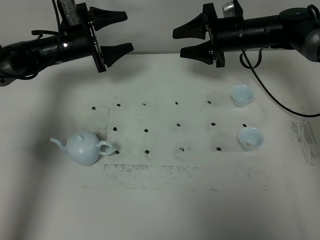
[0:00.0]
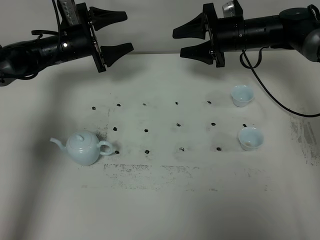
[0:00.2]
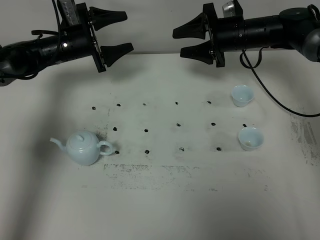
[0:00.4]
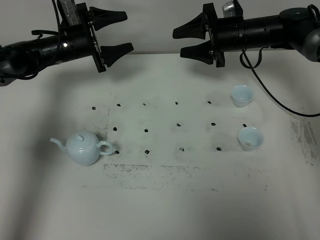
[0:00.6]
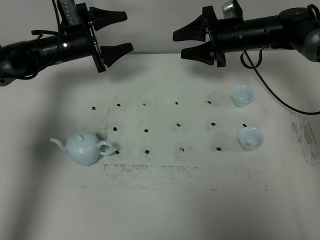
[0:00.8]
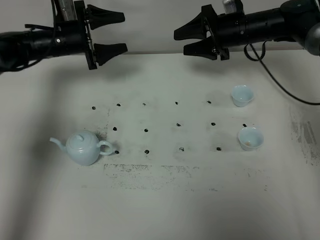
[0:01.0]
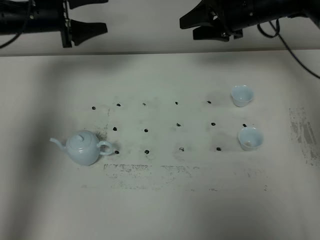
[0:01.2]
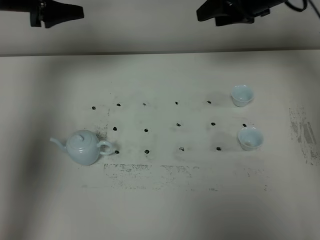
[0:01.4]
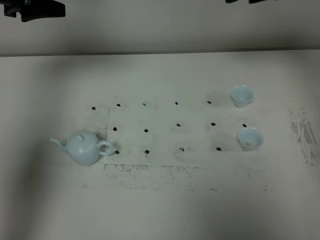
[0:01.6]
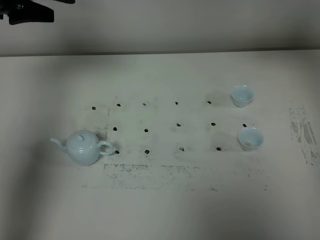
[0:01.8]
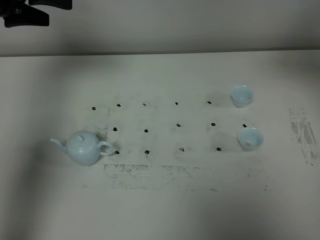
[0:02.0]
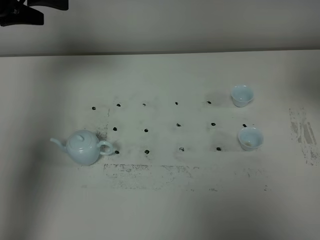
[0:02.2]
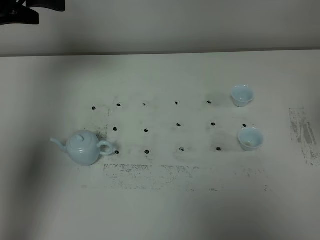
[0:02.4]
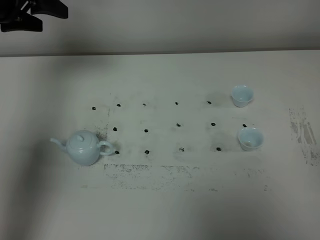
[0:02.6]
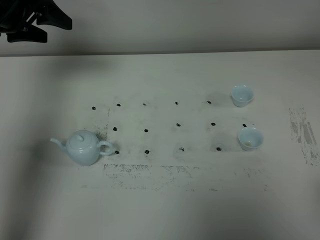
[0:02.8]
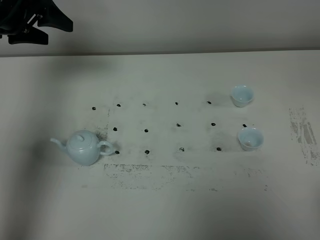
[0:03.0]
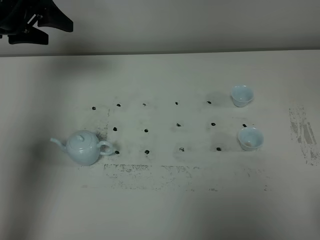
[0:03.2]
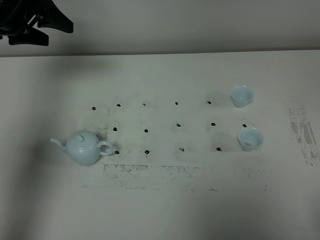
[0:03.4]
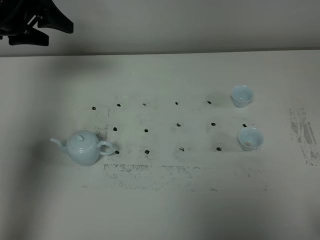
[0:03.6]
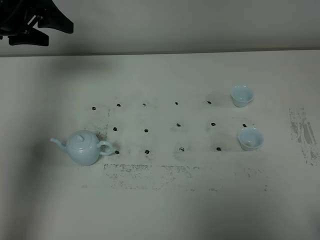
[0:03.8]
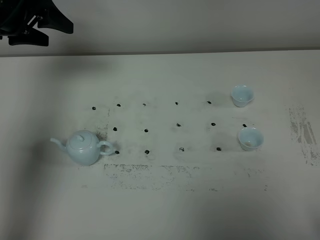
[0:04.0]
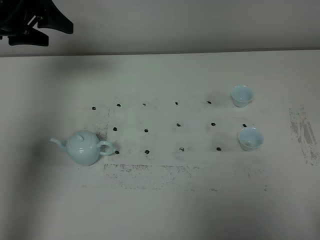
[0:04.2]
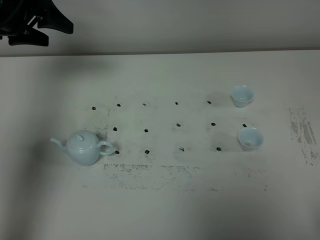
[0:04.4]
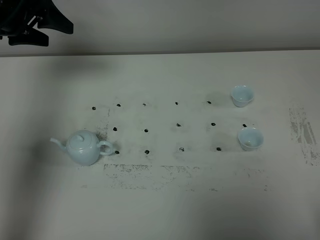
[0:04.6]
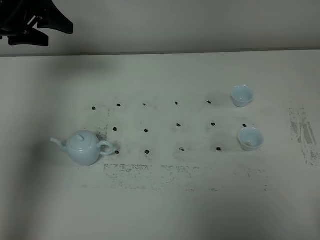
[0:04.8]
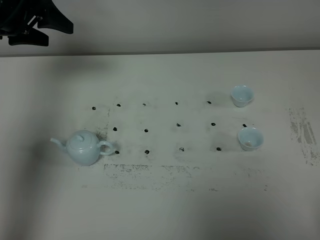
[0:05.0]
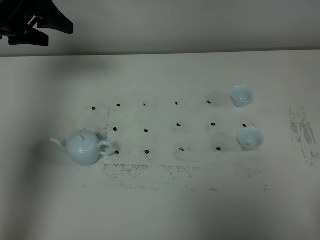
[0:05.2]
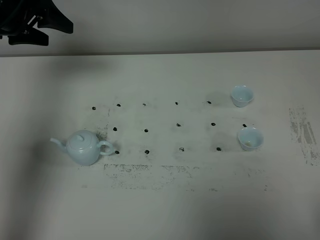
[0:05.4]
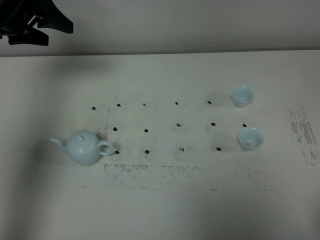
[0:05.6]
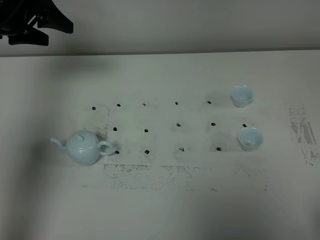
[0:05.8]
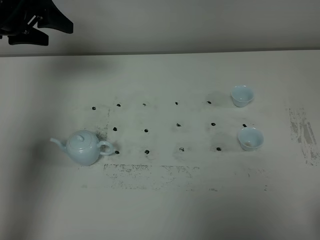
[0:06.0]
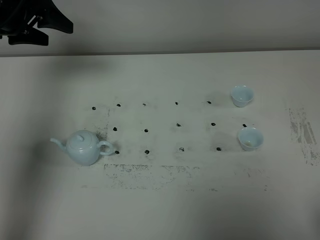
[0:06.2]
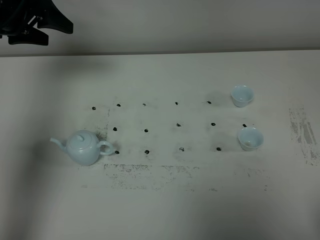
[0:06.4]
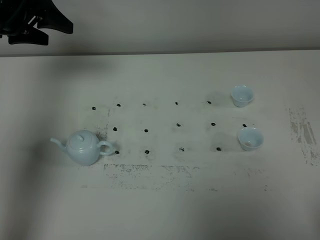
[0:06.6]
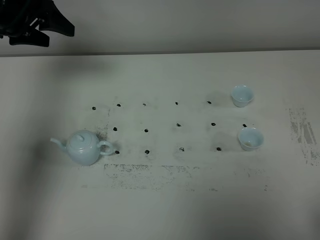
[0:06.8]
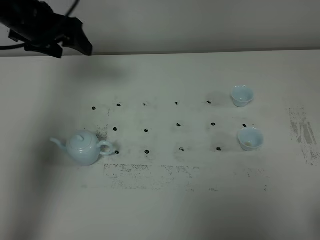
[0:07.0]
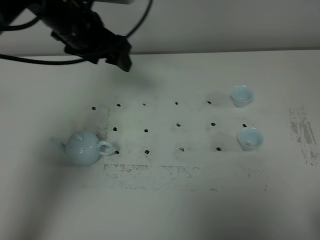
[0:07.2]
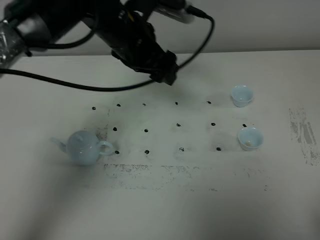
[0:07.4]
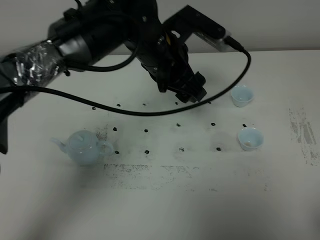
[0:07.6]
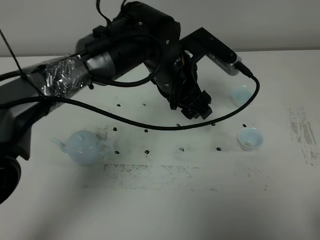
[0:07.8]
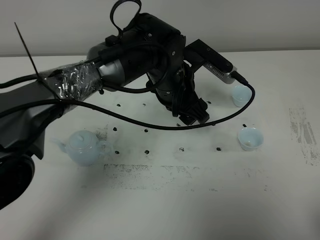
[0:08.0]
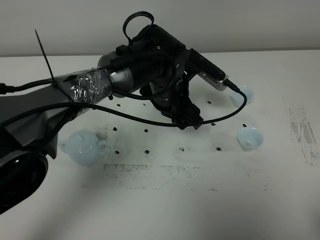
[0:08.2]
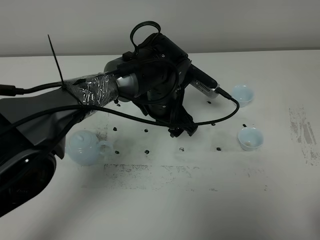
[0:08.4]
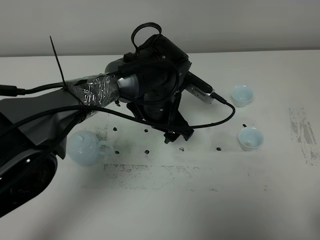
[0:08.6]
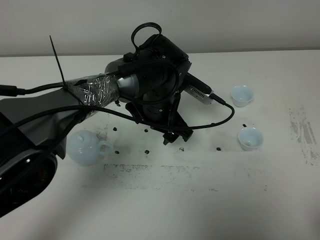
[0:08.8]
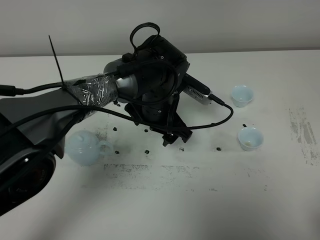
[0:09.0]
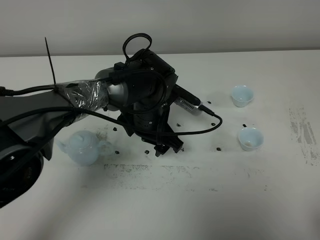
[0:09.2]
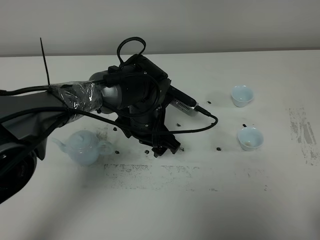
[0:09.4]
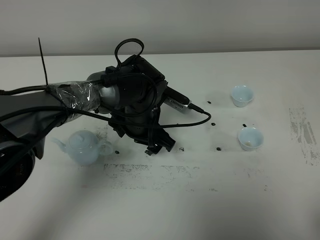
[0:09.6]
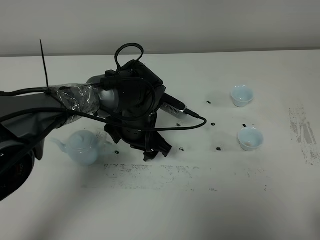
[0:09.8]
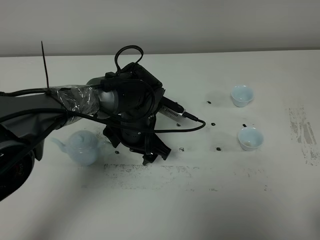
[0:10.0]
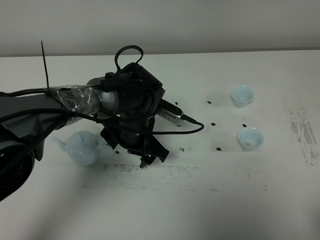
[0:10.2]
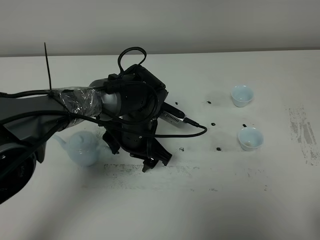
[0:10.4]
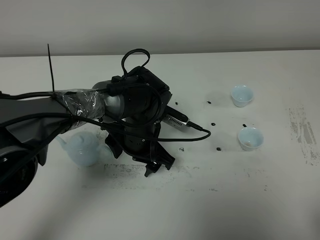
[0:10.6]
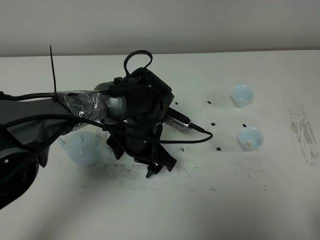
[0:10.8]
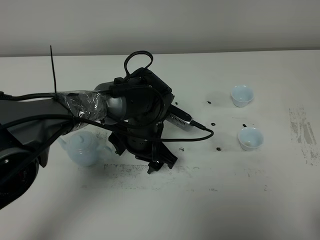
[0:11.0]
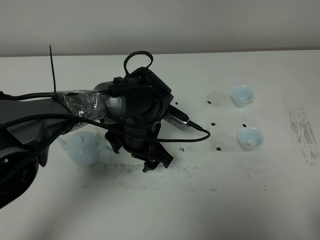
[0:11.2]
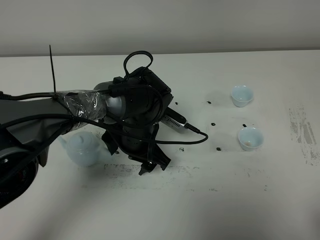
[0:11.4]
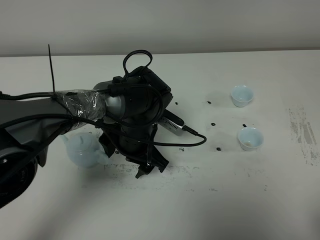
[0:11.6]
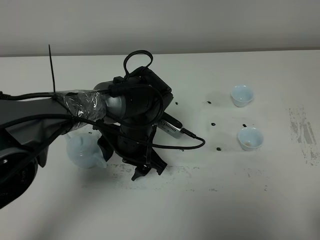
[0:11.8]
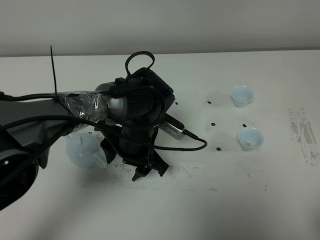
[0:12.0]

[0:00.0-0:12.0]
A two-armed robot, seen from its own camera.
Task of the whole recording: grasp the blue porcelain teapot and pour the tea into the two blue porcelain teacups one by one, put the blue porcelain teapot back in its original place.
0:00.0 to 0:01.6: The left gripper heads upward and backward, covering about 25 cm; the right gripper goes roughly 20 cm upward.
0:01.6 to 0:03.0: The right gripper moves backward, approximately 40 cm. The left gripper moves downward, approximately 5 cm.
0:06.0 to 0:07.6: The left gripper shifts about 30 cm to the right.
0:07.6 to 0:09.0: The left gripper heads downward, covering approximately 10 cm.
0:09.0 to 0:10.4: The left gripper ends up about 5 cm from where it was.
0:10.4 to 0:12.0: The grippers make only small movements.

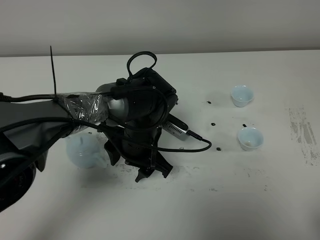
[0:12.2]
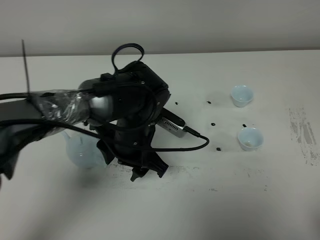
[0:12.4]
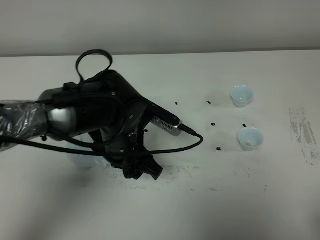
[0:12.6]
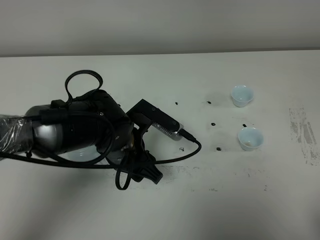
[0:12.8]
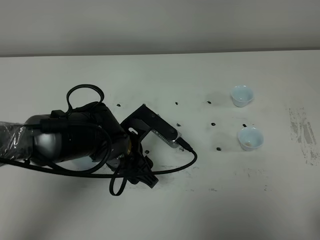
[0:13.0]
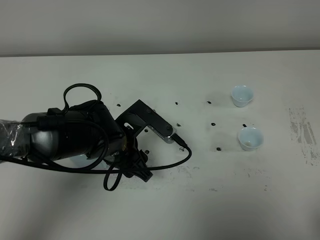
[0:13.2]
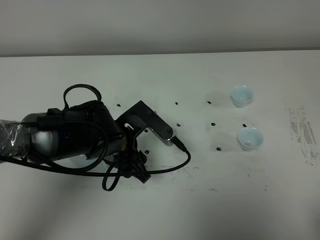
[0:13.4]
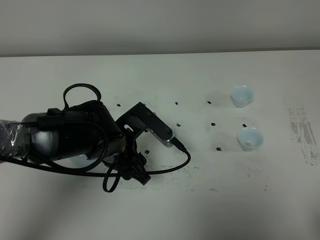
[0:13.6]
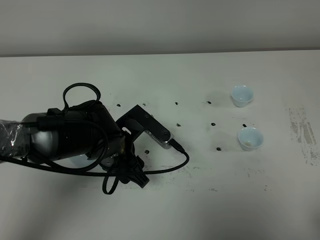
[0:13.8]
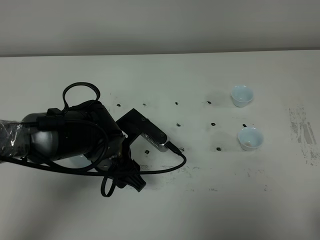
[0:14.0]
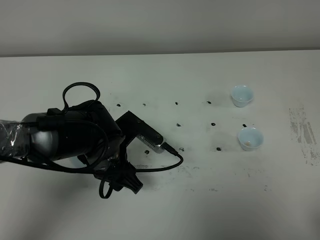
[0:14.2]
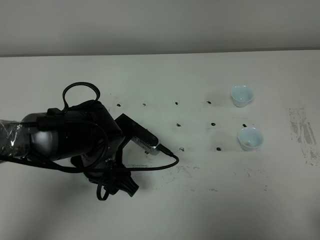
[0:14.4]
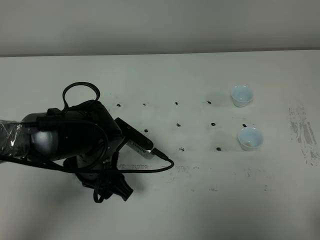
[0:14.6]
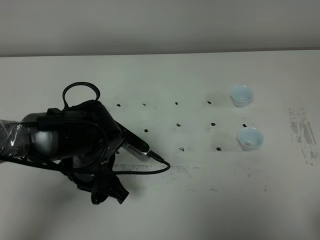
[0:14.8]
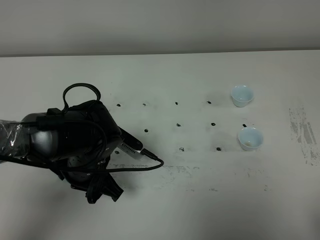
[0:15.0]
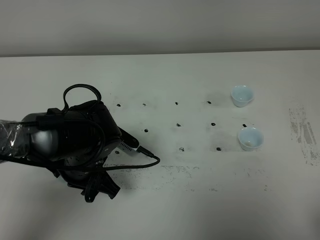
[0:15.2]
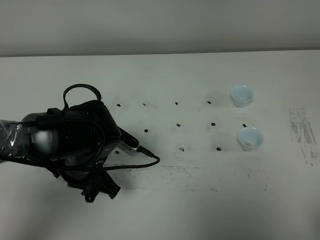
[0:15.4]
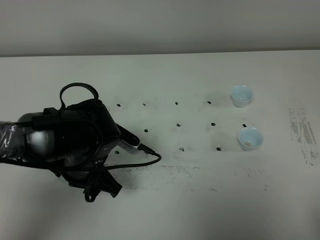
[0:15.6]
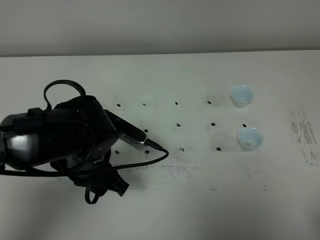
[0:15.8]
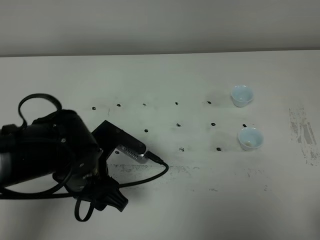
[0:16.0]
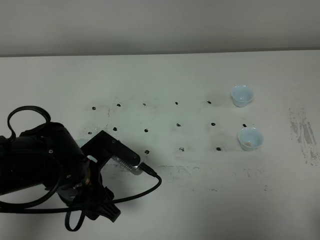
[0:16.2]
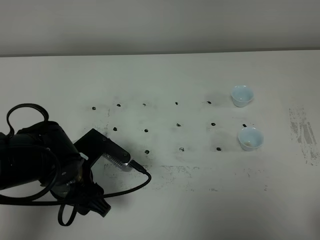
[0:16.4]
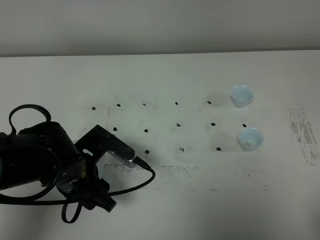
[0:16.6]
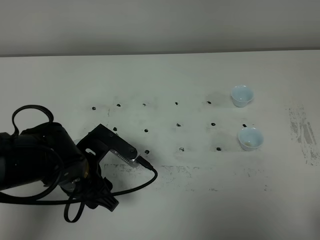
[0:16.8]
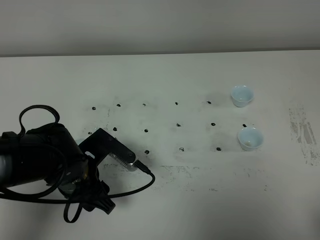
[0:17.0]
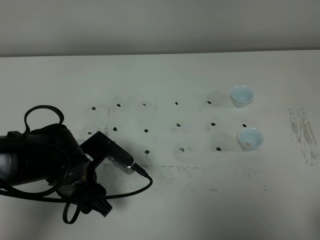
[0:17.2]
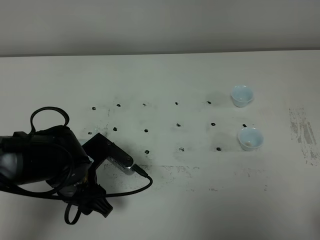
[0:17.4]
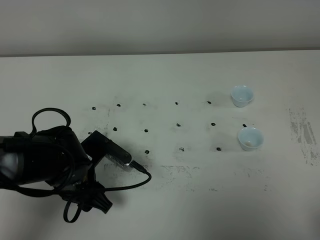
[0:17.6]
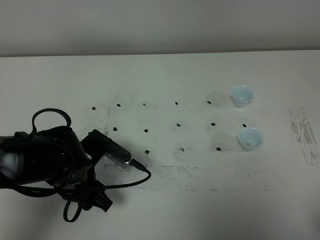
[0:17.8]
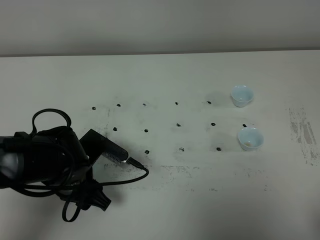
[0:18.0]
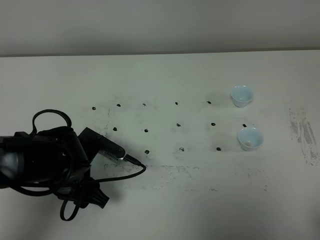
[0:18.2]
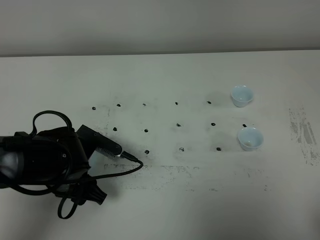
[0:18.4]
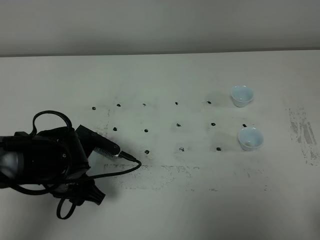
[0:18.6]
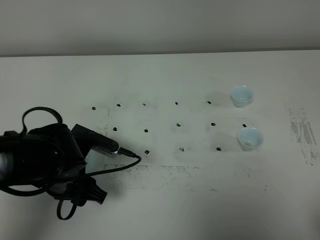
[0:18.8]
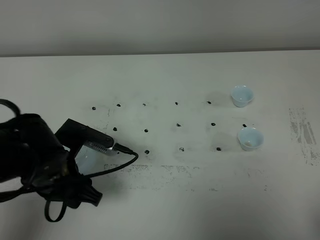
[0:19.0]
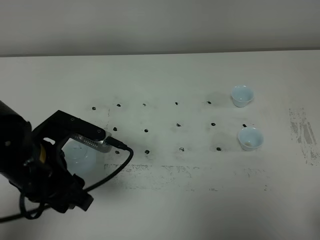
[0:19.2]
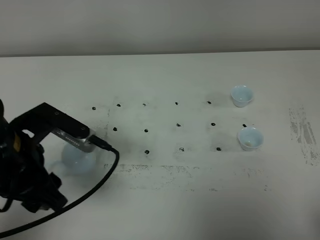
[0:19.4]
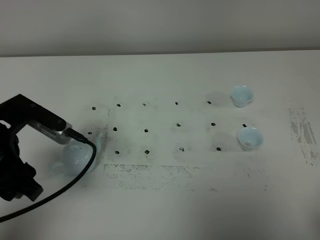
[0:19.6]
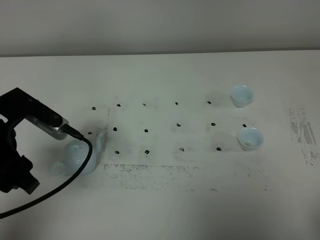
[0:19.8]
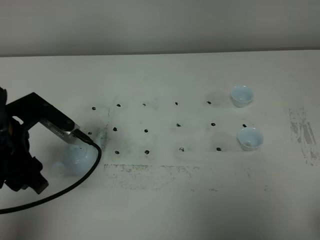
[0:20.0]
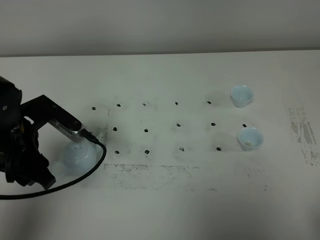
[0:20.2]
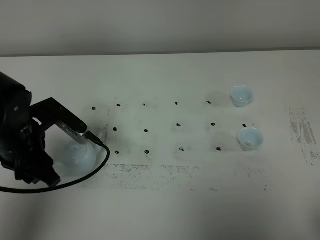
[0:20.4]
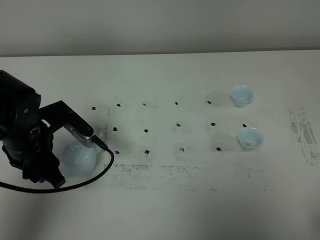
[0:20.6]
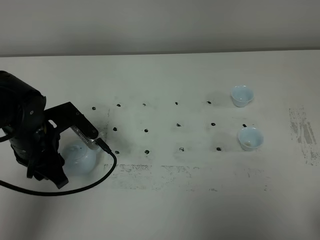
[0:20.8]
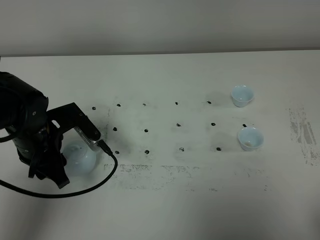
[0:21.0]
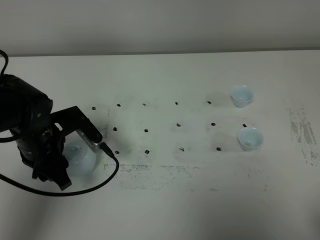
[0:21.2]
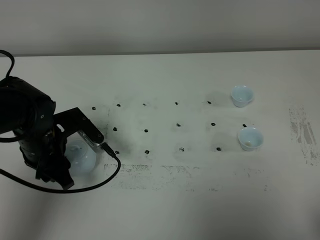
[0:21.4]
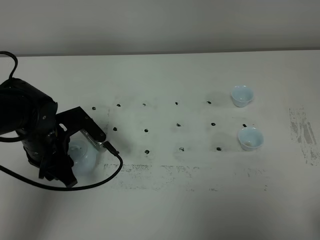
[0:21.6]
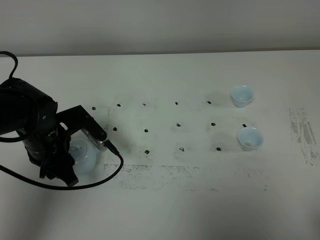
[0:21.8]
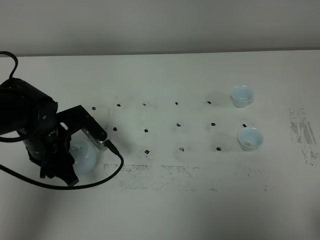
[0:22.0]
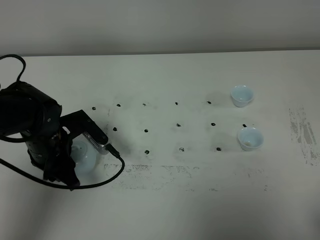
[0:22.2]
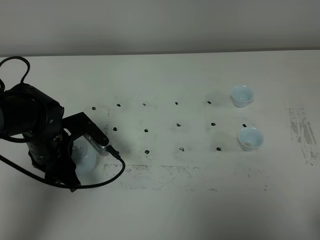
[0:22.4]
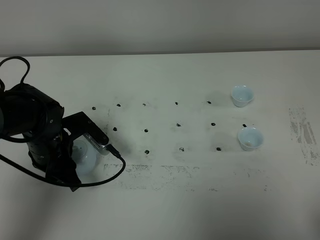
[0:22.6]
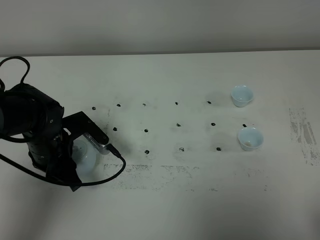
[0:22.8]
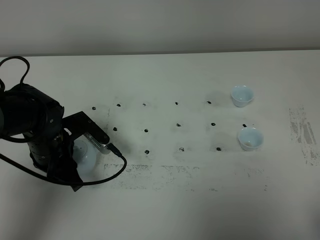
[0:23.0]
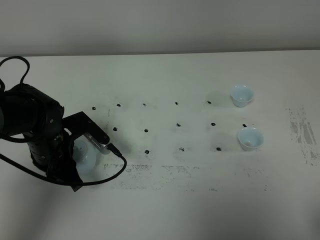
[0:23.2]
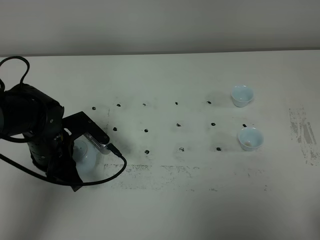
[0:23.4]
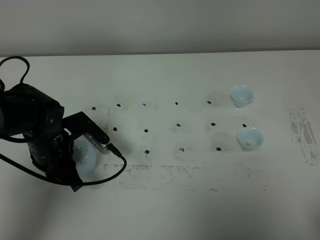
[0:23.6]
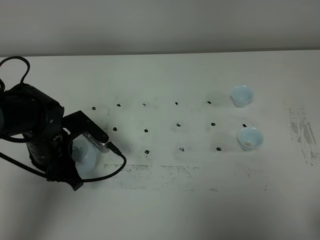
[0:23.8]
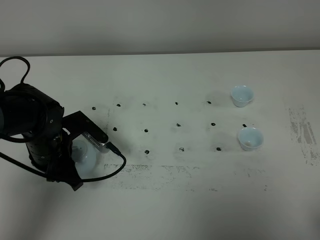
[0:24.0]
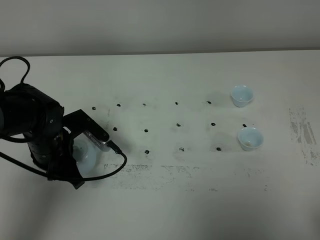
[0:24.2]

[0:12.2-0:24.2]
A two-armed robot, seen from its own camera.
Task of the whole recording: grasp the blue porcelain teapot and pour the tea into the two blue porcelain teacups one by one, put the blue porcelain teapot back in its original place.
0:12.2 to 0:13.8: The left gripper is displaced to the left by some 5 cm.
0:16.6 to 0:18.2: There are only small adjustments of the grippers.
0:18.2 to 0:19.8: The left gripper is displaced upward and to the left by some 15 cm.
0:19.8 to 0:21.2: The left gripper moves downward and forward, about 10 cm.
0:21.2 to 0:22.6: The grippers move only a little.
0:22.6 to 0:24.2: Neither gripper changes place.
